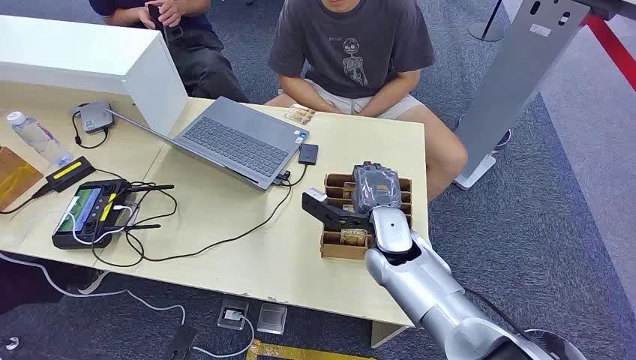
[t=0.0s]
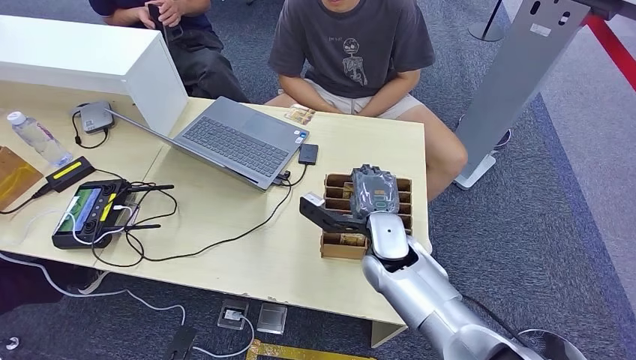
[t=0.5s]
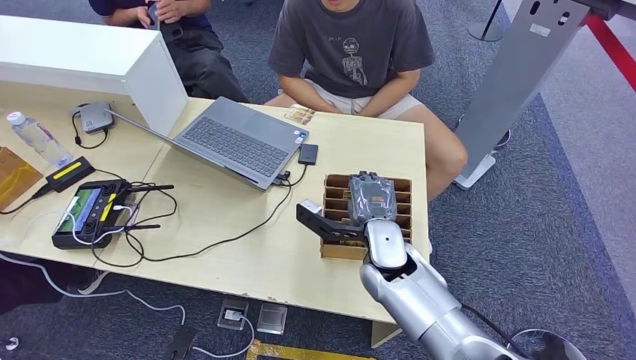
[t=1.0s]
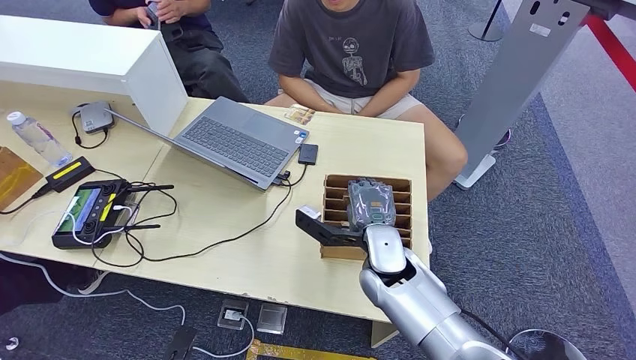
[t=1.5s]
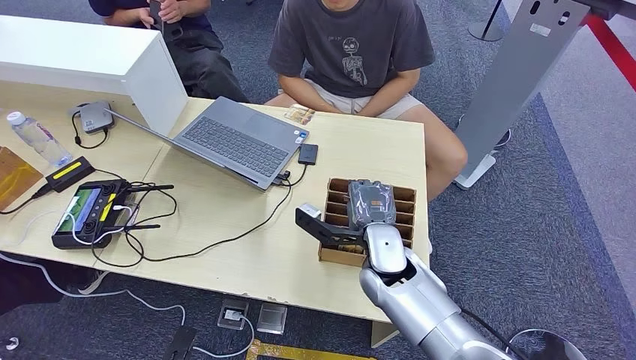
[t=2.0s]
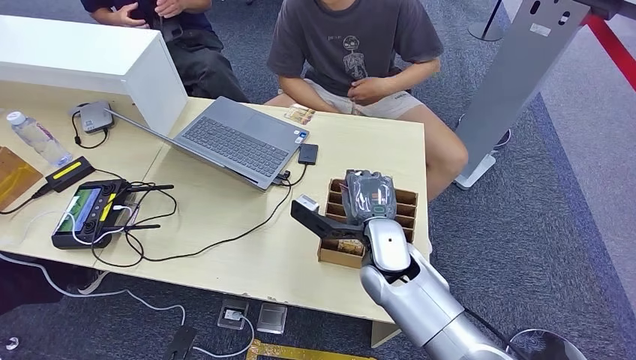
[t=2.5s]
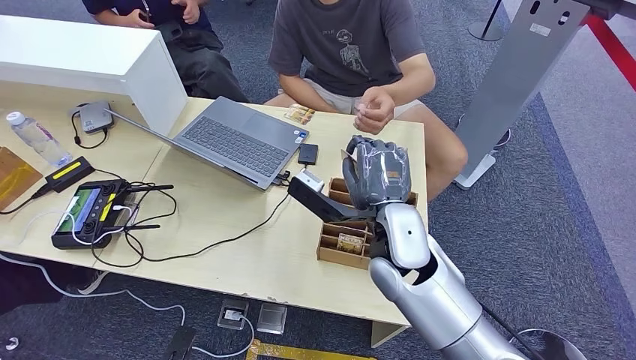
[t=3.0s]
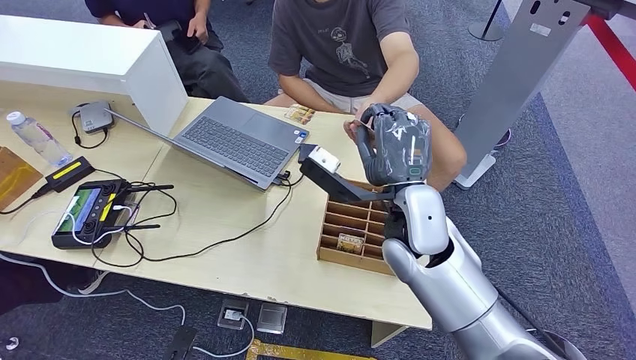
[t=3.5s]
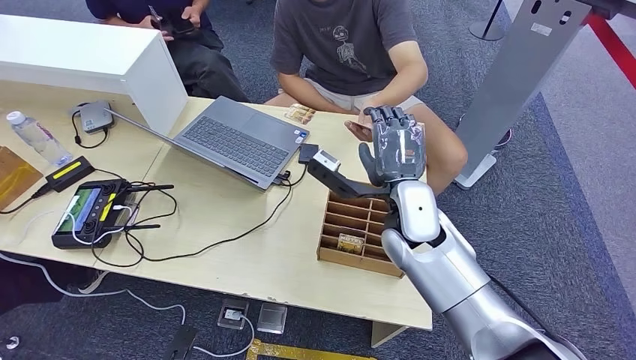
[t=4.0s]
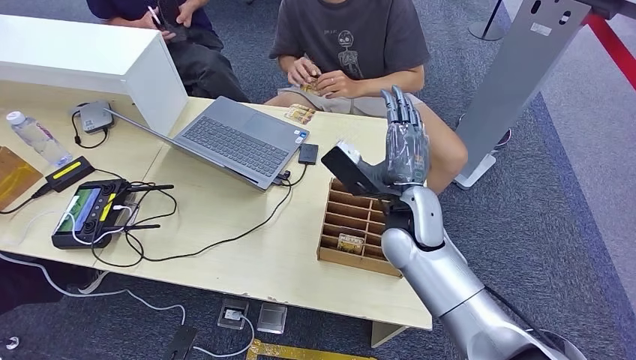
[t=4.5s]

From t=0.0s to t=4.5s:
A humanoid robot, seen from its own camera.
Step, from t=0.0s to t=2.5s: Pick up the room card from the card holder.
Step, from t=3.0s to t=4.5s: Hand the room card to the target.
From t=2.0s to t=4.5s: The right hand shifts approximately 10 cm upward.
